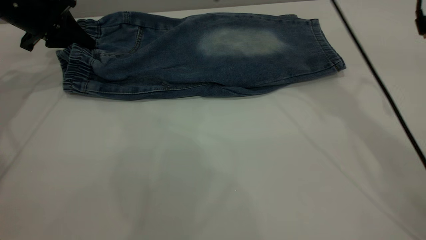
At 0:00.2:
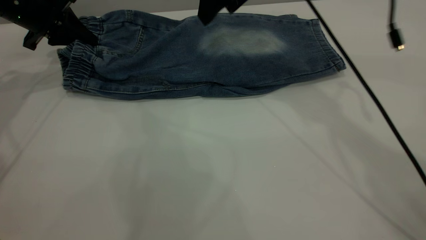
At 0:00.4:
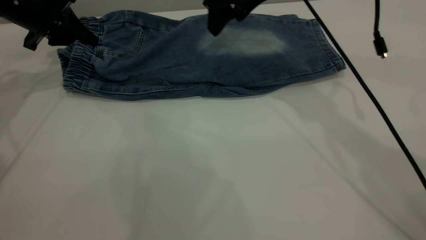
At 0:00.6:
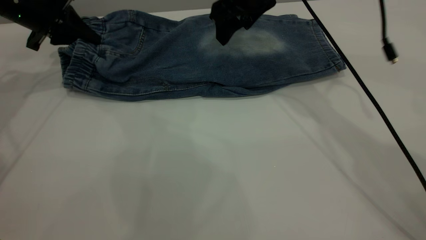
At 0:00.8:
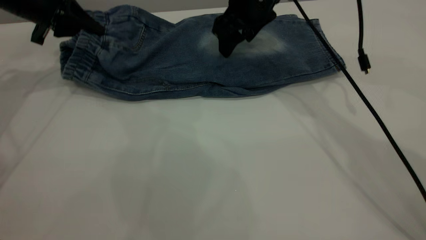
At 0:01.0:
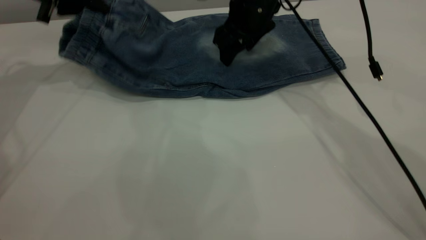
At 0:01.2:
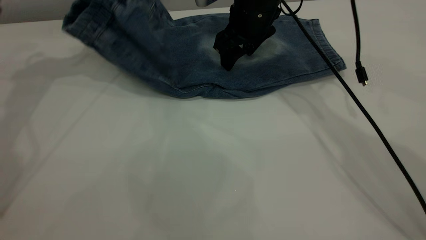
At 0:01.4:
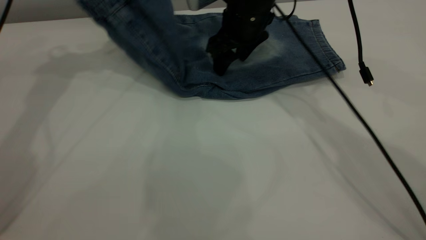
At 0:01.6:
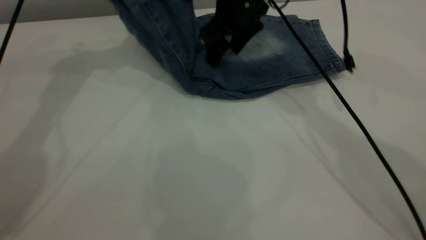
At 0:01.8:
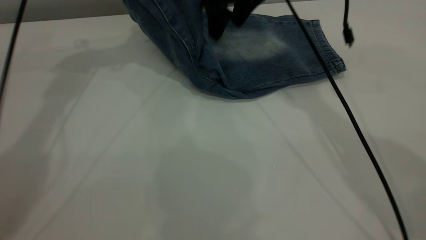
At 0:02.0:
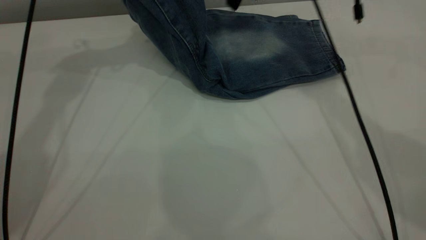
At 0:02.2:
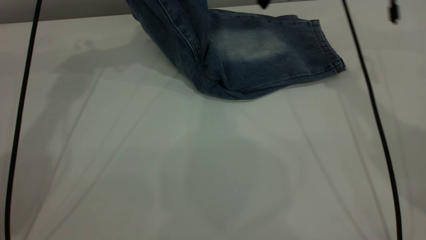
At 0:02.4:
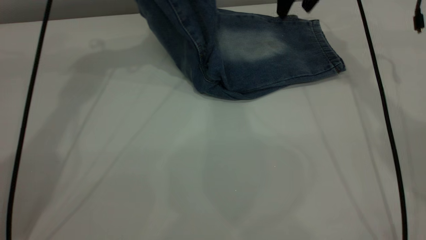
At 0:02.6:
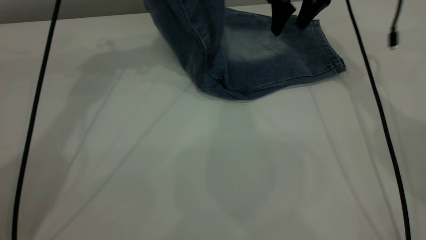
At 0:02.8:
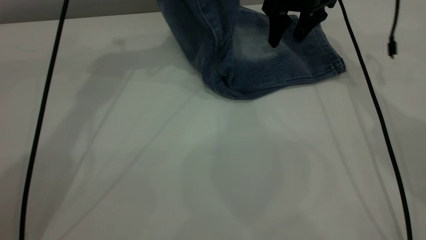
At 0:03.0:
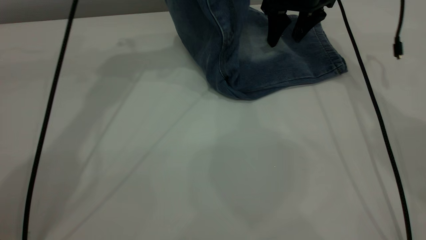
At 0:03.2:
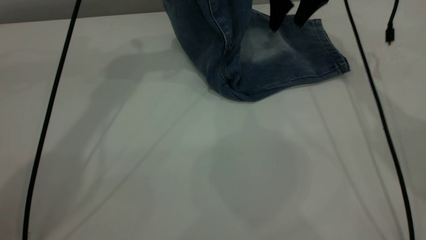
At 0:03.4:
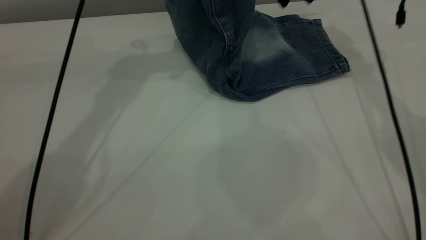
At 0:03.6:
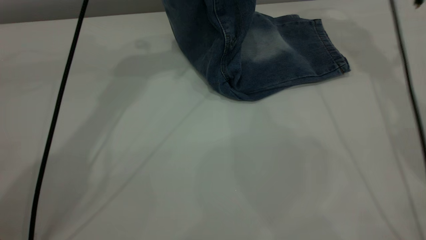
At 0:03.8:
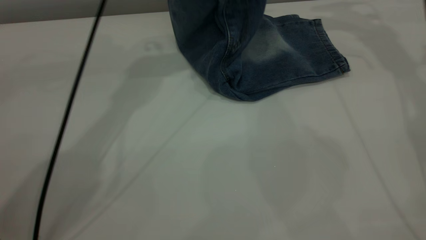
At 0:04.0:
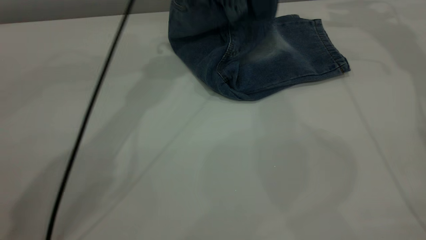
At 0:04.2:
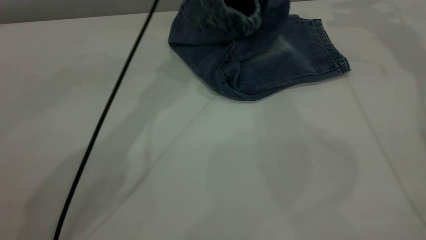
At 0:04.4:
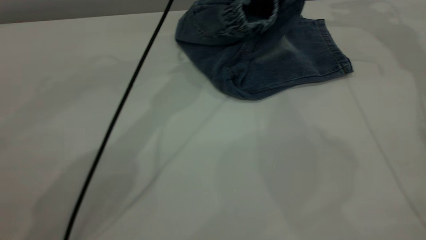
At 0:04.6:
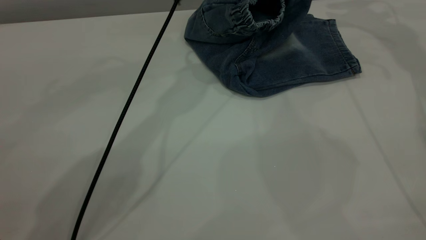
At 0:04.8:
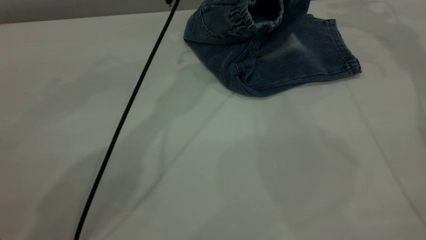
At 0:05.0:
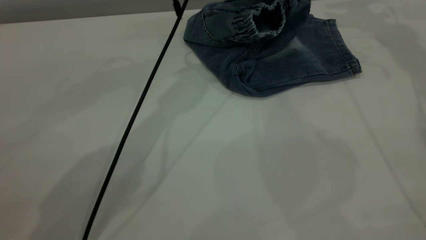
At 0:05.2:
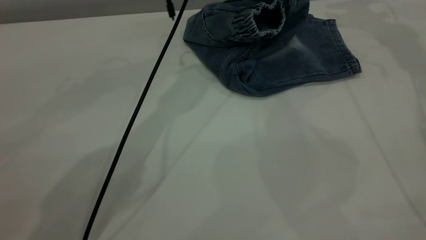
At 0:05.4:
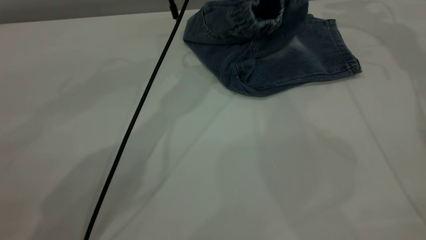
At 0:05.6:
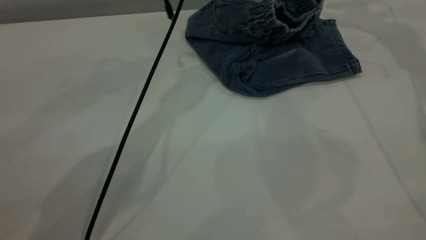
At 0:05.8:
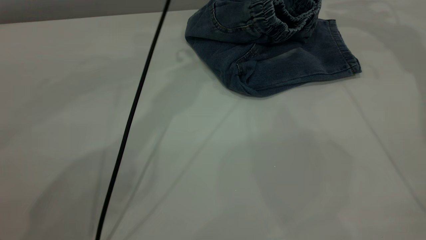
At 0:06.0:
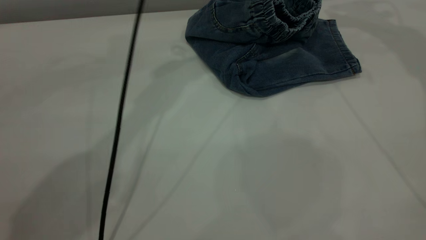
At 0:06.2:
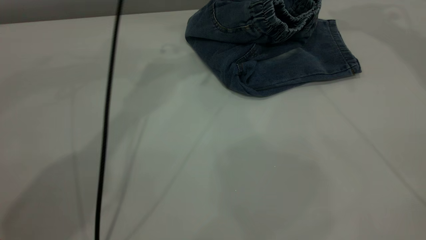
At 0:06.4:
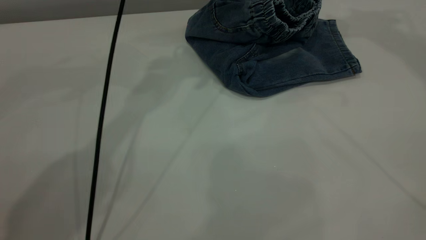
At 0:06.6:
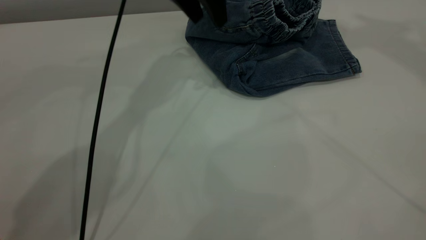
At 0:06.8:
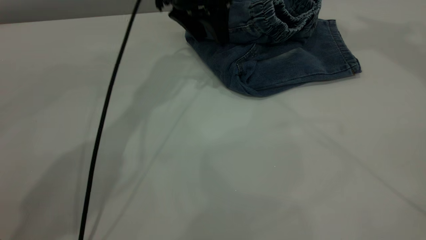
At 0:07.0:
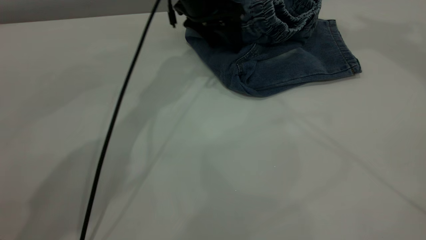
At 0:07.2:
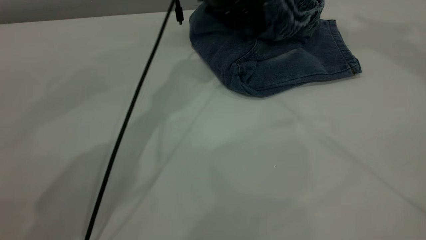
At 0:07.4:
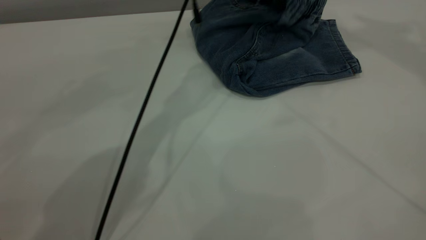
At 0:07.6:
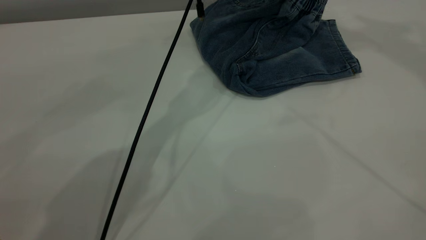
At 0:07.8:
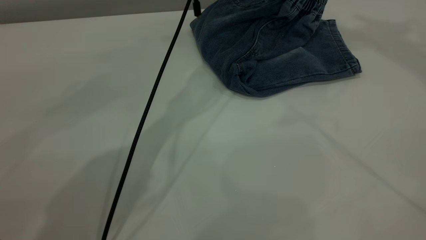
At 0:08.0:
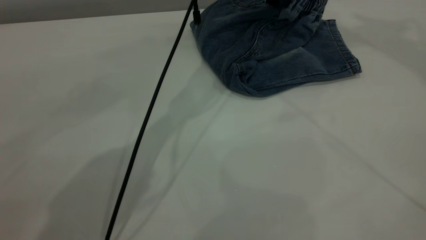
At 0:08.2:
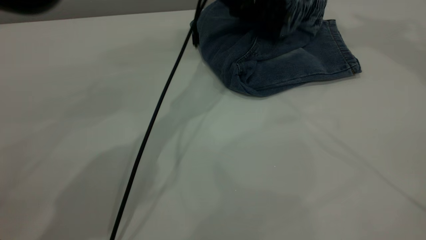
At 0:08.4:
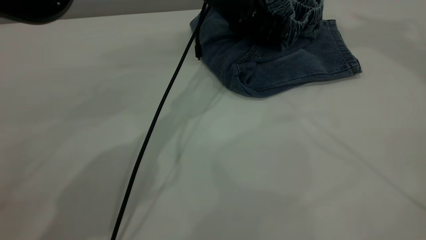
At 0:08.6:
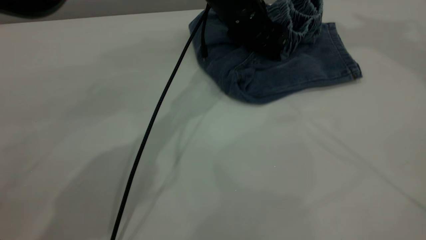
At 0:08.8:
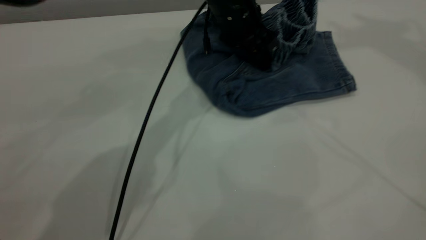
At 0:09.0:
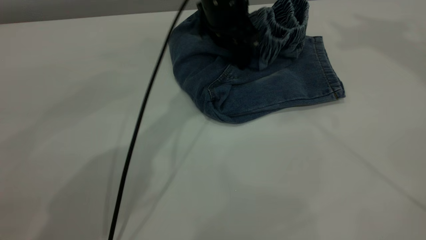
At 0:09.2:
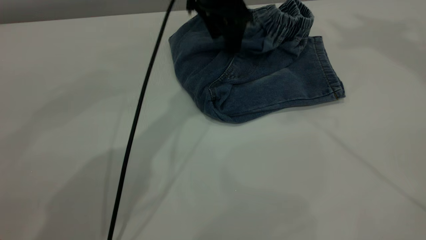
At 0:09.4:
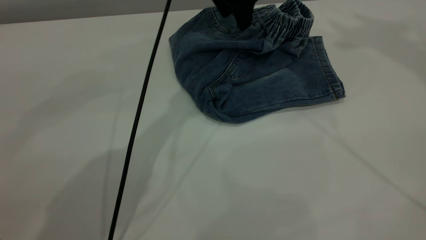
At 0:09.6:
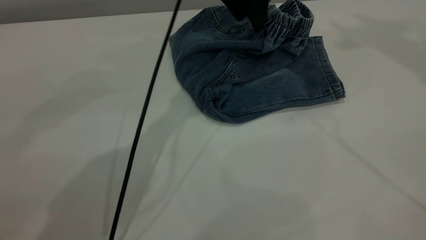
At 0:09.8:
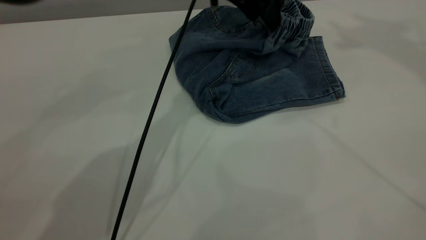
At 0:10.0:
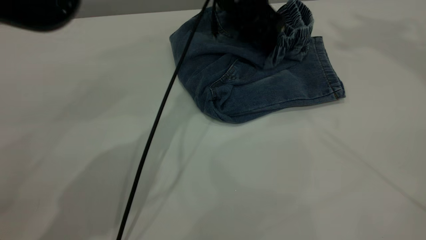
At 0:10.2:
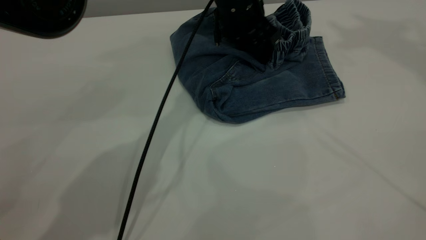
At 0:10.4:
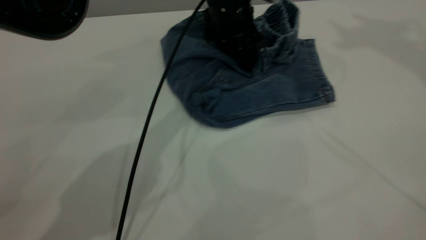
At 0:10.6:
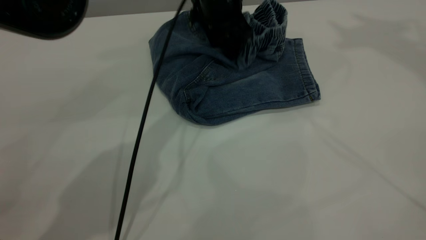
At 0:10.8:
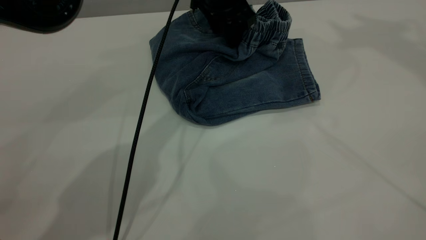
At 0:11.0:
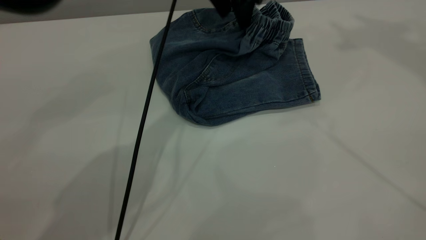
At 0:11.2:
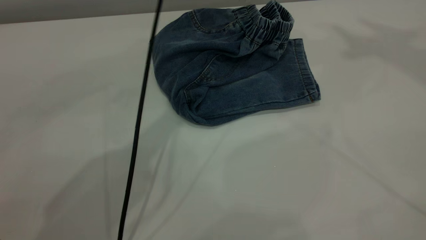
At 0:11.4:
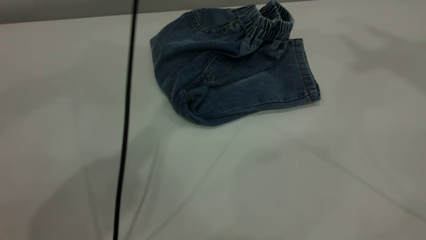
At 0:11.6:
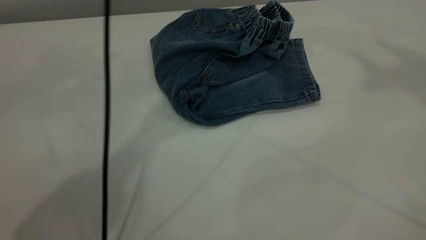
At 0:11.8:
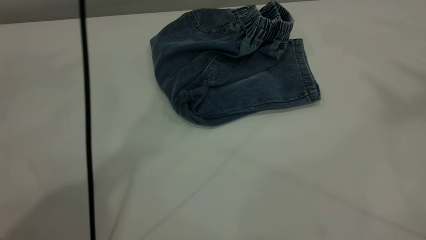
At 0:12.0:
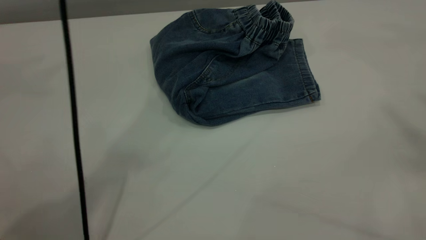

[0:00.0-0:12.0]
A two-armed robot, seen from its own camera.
Step, 0:00.0 to 0:06.2: Fold the pants from left to right.
0:00.0 to 0:01.6: The left gripper is displaced upward and to the right by some 20 cm. Meanwhile the right gripper travels downward by some 5 cm.
0:01.6 to 0:03.0: The right gripper travels to the right and forward by approximately 15 cm. Meanwhile the left gripper is displaced to the right by roughly 10 cm.
0:03.0 to 0:04.4: The right gripper heads upward and to the right, covering approximately 20 cm, while the left gripper is displaced to the right and downward by about 15 cm.
0:04.4 to 0:06.0: Both grippers travel together upward, some 10 cm. The left gripper opens its fingers.
0:06.0 to 0:07.6: The right gripper shifts roughly 20 cm upward and backward, while the left gripper heads downward, covering roughly 10 cm.
0:07.6 to 0:09.0: The left gripper moves some 10 cm downward and comes back.
0:09.0 to 0:10.4: The left gripper travels upward and back again, about 5 cm each way.
0:10.4 to 0:12.0: The right gripper moves backward and upward, about 25 cm. The left gripper is displaced upward by some 35 cm.

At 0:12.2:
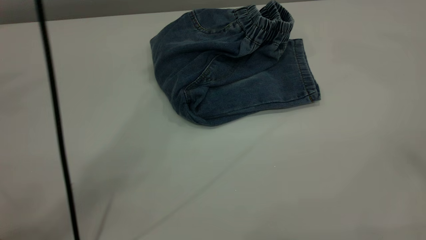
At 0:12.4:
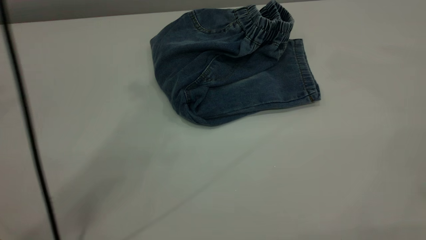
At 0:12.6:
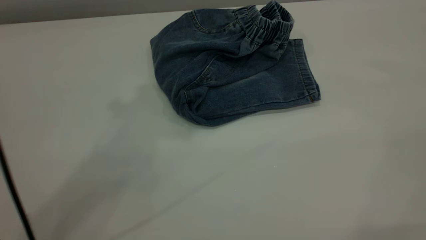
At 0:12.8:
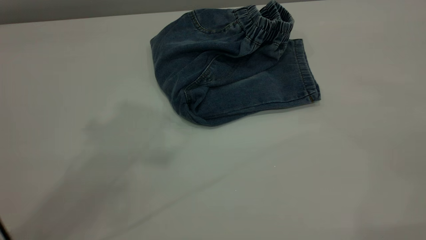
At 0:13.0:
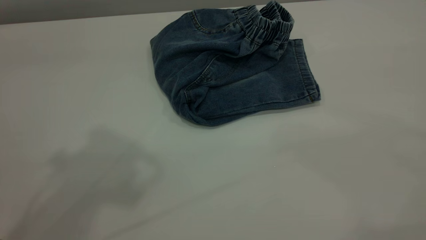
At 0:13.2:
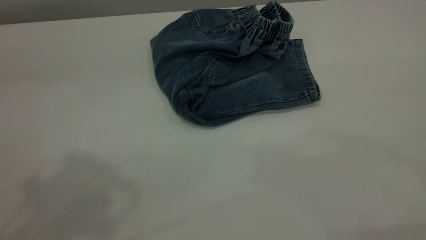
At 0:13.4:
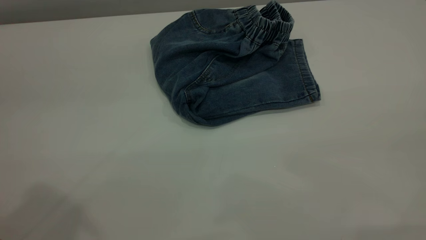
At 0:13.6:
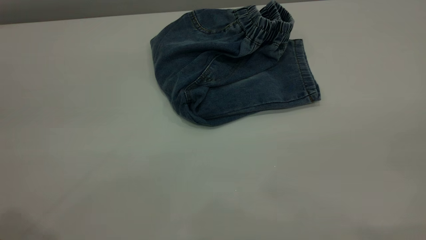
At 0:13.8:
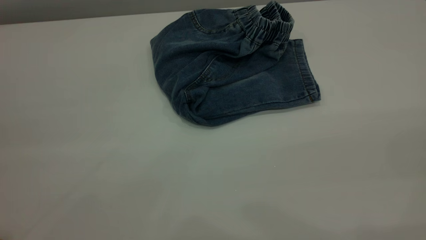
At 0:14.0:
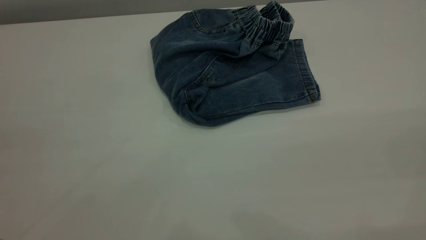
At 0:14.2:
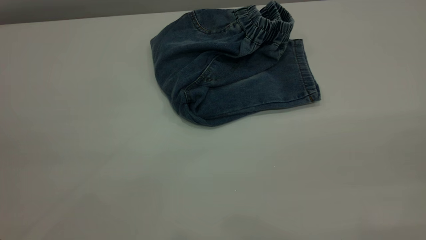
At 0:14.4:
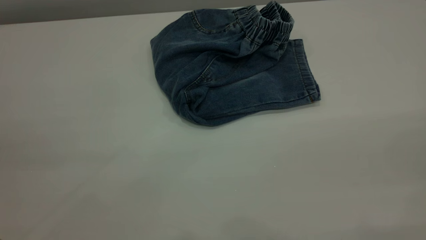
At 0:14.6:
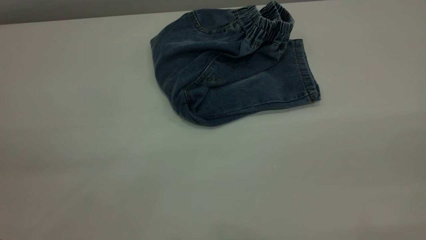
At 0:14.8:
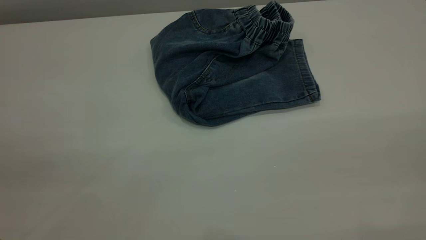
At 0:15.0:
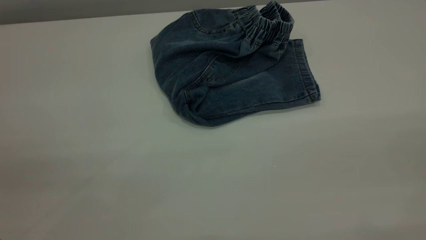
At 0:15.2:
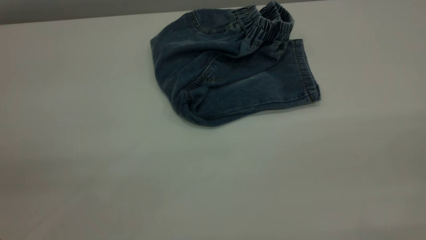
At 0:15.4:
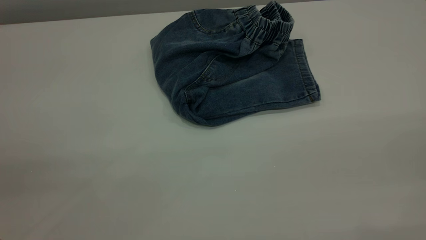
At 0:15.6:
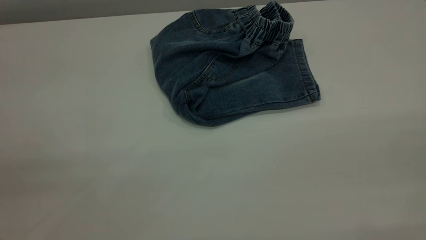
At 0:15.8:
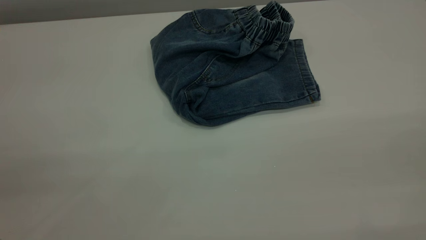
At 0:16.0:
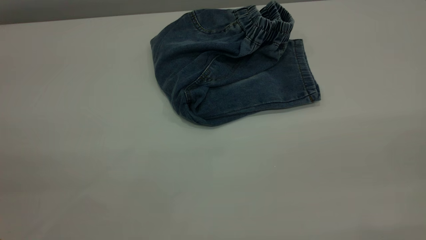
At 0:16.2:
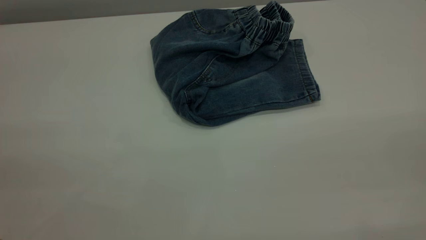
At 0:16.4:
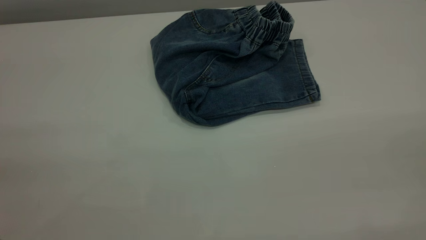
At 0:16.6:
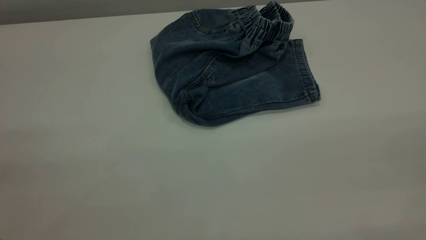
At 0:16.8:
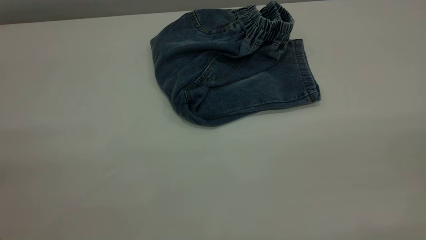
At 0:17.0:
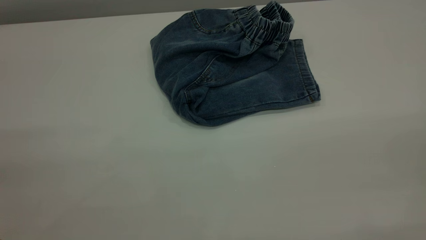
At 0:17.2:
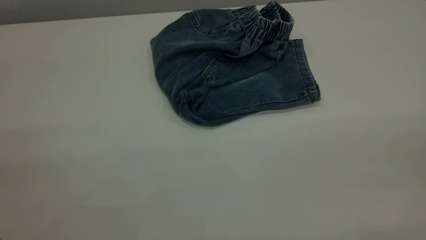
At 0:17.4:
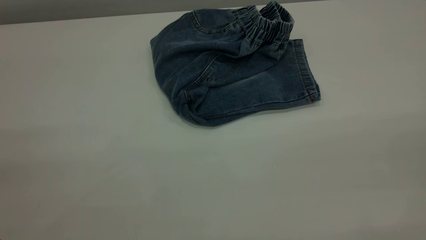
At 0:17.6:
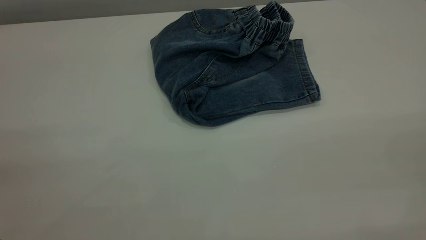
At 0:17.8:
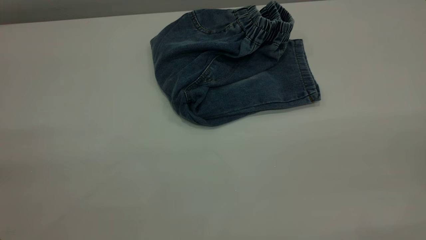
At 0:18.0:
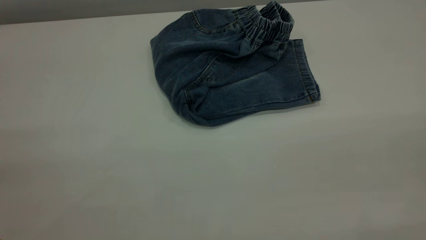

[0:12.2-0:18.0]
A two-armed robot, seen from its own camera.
0:12.2 to 0:13.6: The left gripper shifts approximately 30 cm backward and to the left.
0:16.6 to 0:18.0: Neither gripper changes place.
